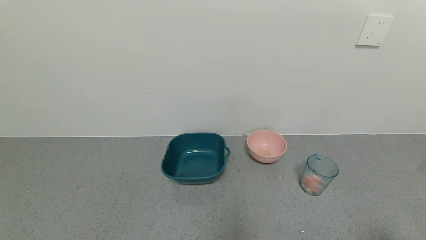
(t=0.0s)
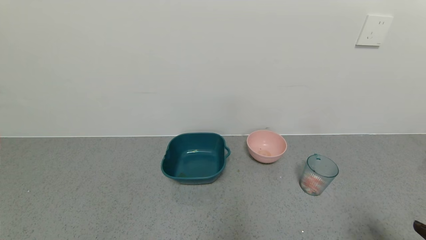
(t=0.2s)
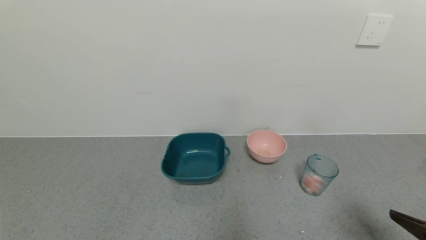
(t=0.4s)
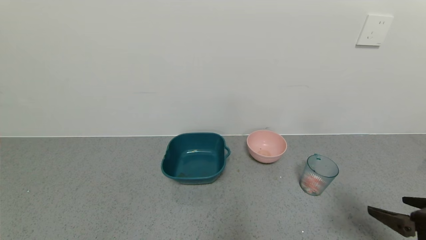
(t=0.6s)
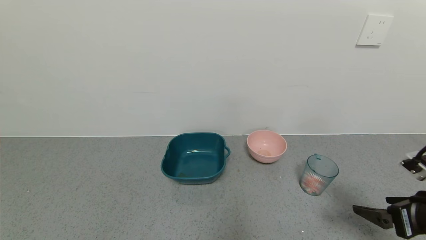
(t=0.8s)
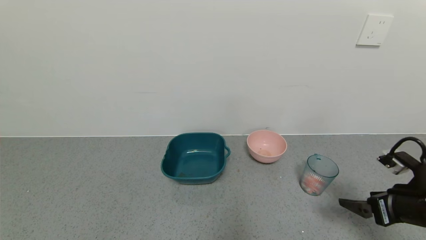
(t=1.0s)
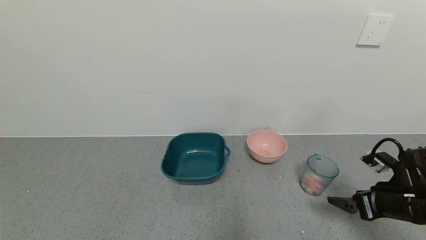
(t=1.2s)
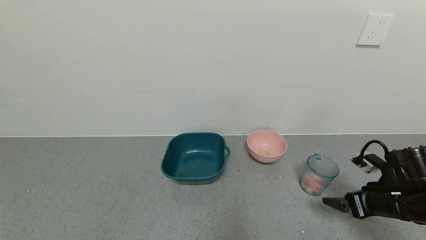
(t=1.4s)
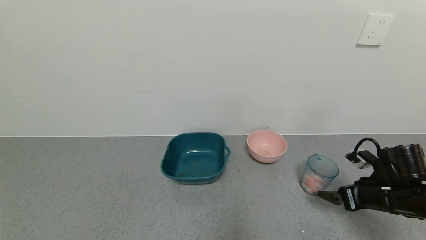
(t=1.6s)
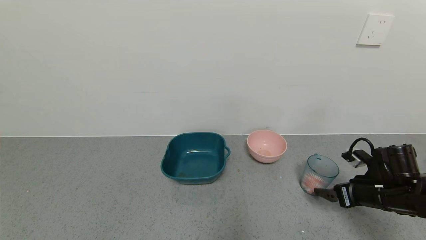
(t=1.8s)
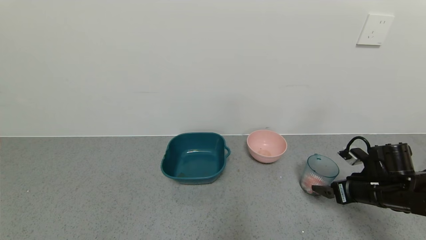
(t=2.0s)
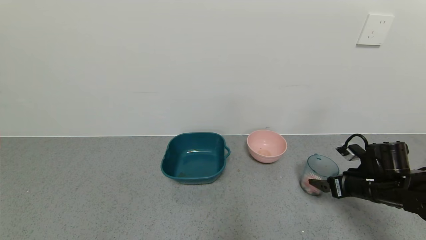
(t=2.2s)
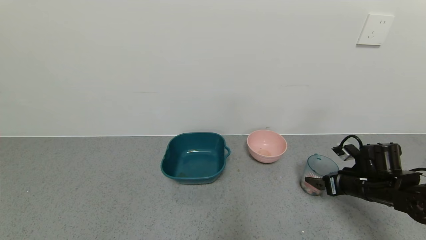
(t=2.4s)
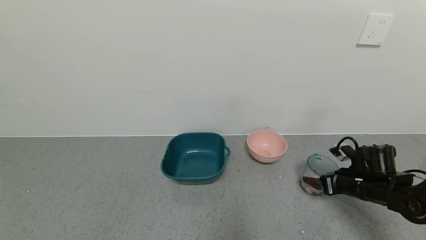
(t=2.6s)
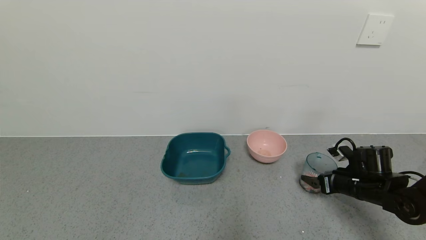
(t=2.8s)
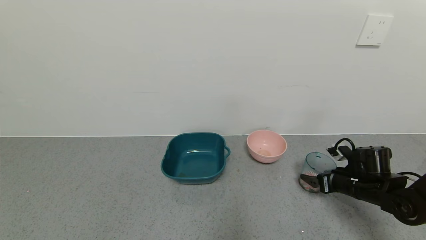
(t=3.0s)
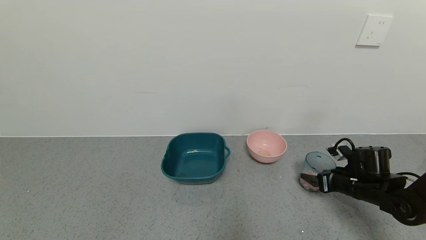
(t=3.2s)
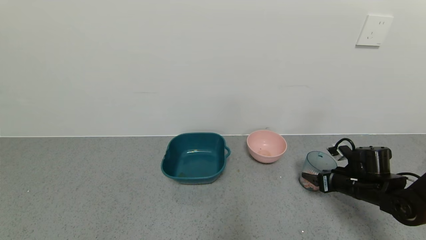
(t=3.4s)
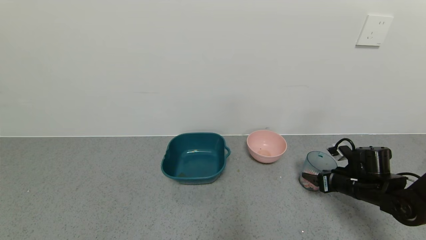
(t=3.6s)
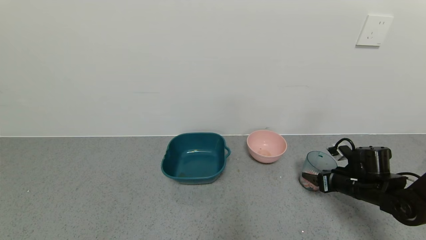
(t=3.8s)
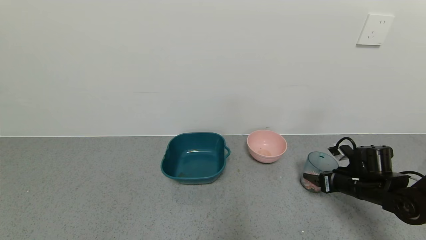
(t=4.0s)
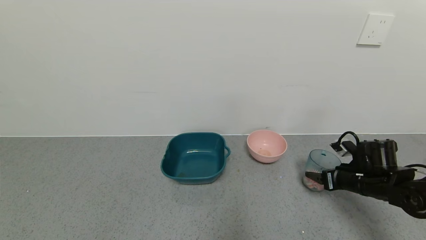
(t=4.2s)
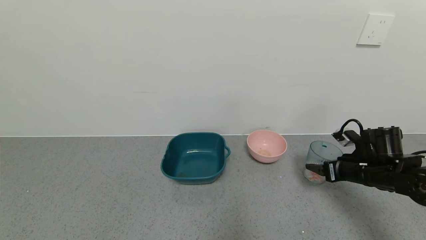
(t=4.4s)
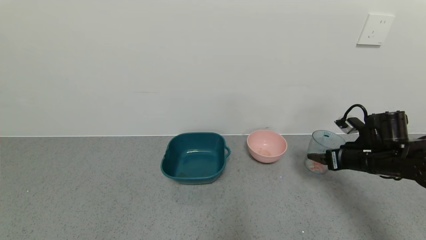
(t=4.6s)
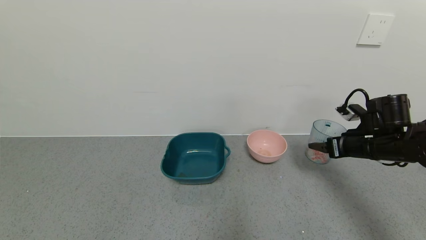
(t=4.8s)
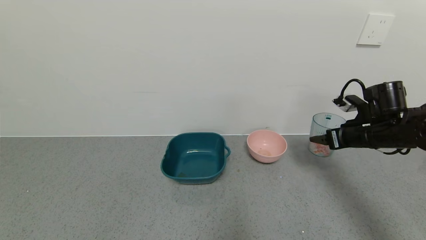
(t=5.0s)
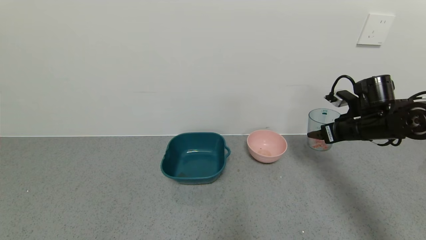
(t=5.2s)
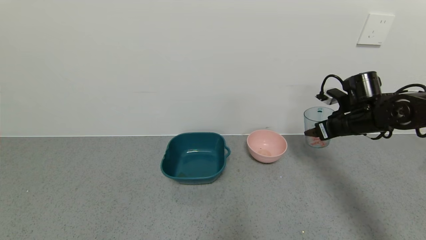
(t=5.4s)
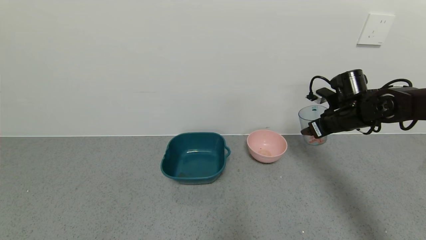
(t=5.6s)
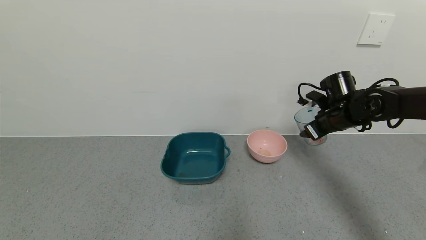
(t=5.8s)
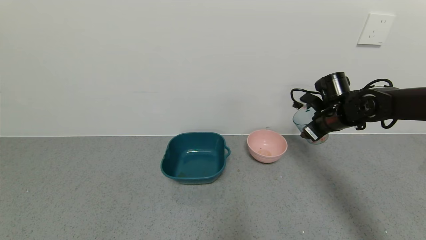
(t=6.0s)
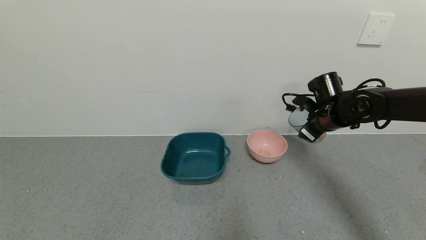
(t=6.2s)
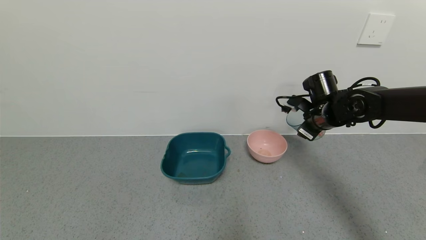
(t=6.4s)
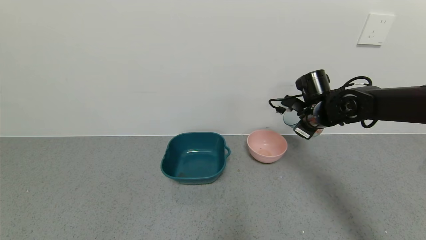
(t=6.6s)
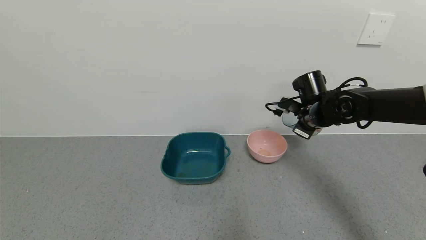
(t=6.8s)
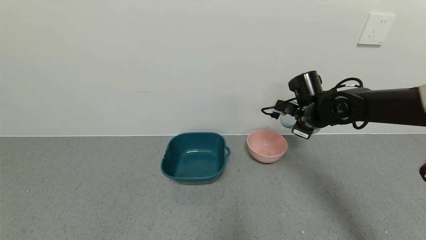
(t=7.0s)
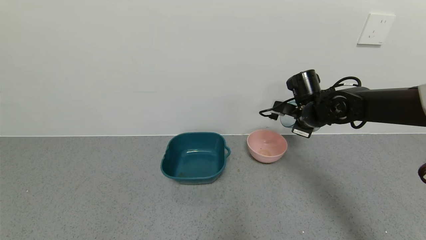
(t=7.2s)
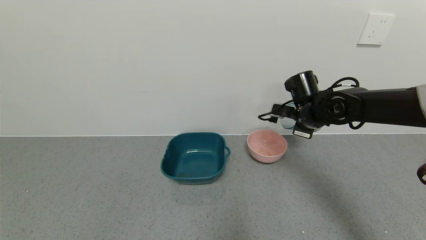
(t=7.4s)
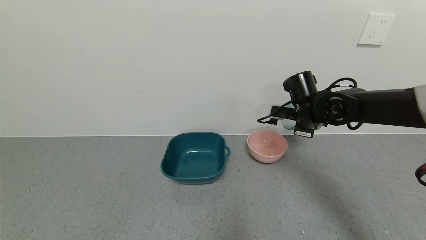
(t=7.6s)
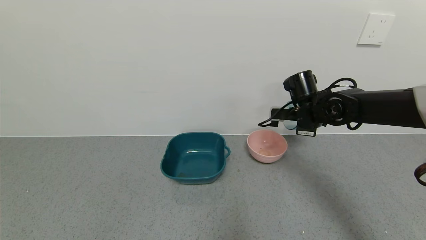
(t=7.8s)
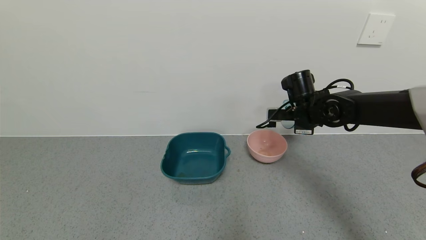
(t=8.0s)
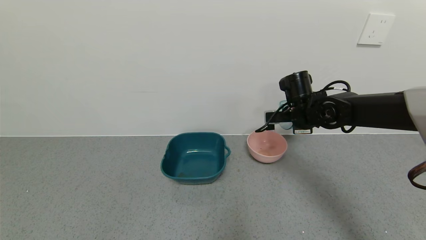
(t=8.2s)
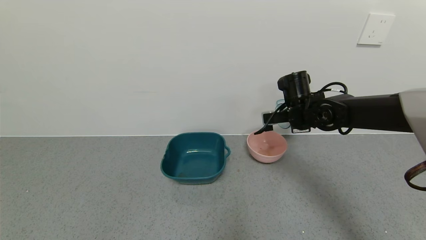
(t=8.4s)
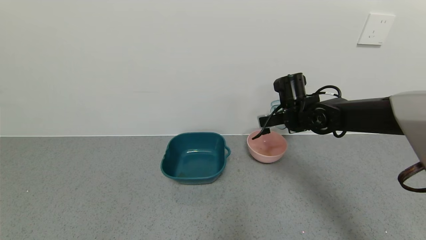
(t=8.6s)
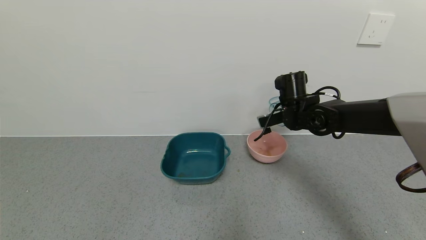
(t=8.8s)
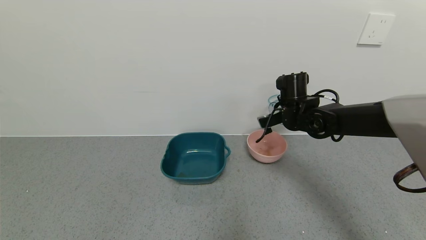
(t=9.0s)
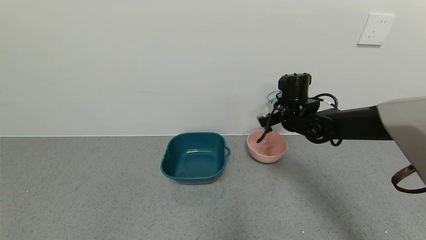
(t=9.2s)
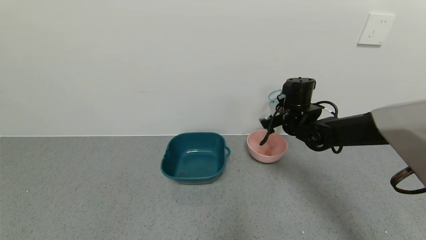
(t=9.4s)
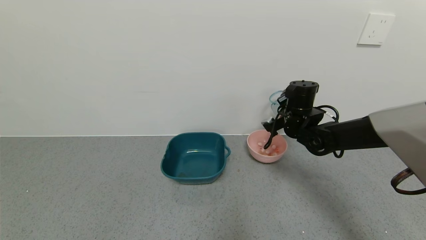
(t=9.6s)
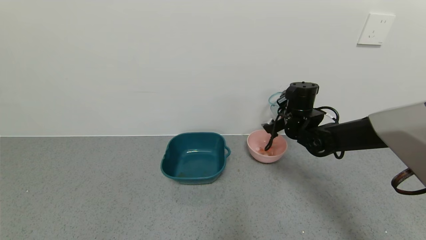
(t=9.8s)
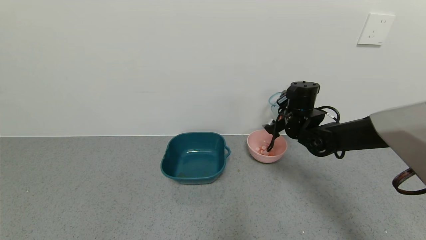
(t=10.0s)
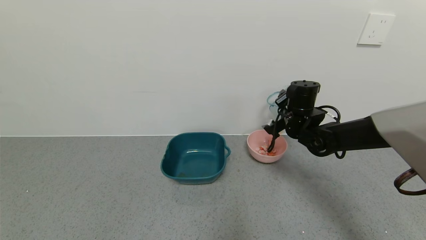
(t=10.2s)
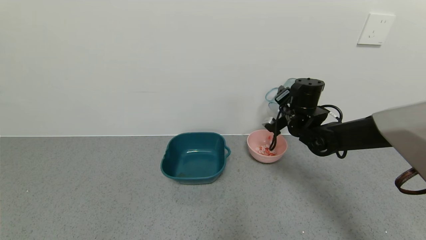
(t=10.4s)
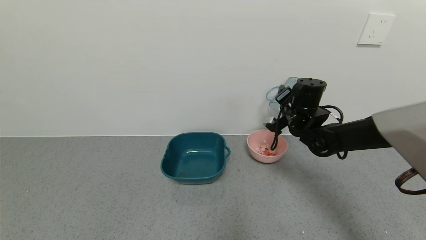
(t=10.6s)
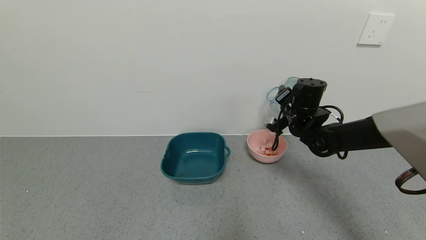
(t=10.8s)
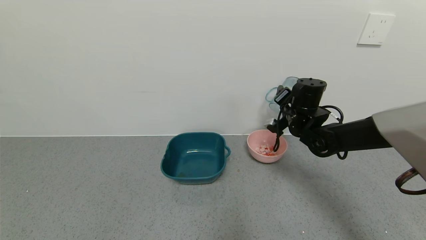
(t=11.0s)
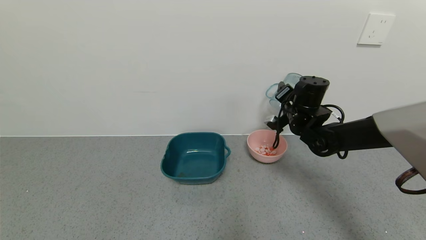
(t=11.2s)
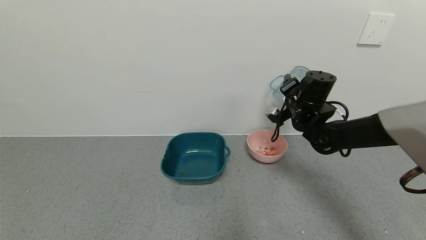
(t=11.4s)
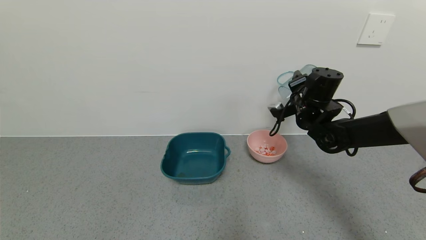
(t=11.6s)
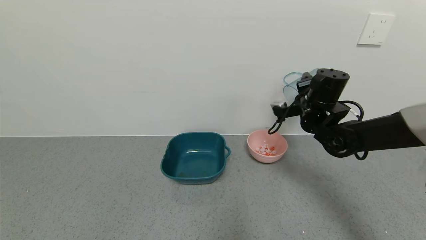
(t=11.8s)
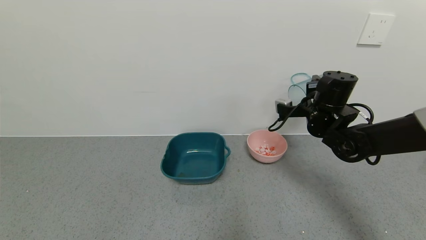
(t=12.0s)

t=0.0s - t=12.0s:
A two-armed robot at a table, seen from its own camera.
Task of the whole recording: use a gripper to pick up the cup and pour the solid into a bowl or tray.
Step, t=0.0s - t=3.4s: Grasp the glass of shrimp with the right gripper.
Step, t=3.6s - t=11.8s: Pour the shrimp into the pink bowl with the right gripper.
t=0.0s - t=1.6s: The right gripper travels forward by some 25 cm.
t=1.6s - t=3.0s: The right gripper heads forward, covering about 5 cm.
t=3.0s - t=4.4s: The right gripper shifts about 5 cm upward, and closes its fingers.
t=4.4s - t=6.0s: The right gripper travels forward, upward and to the left by some 15 cm.
t=6.0s - t=7.6s: The right gripper shifts some 5 cm to the left.
t=10.4s - t=12.0s: The right gripper moves approximately 5 cm.

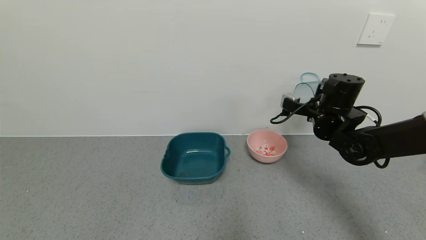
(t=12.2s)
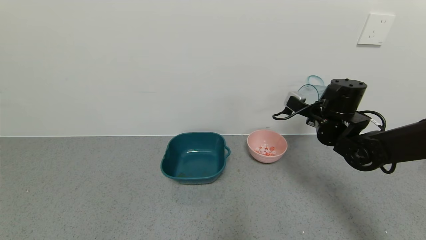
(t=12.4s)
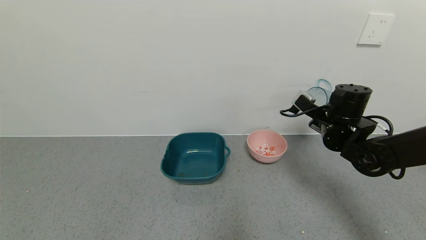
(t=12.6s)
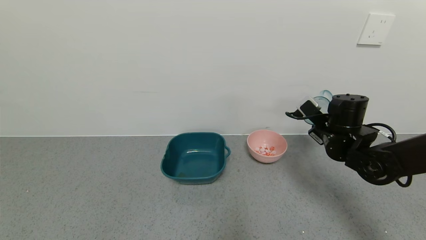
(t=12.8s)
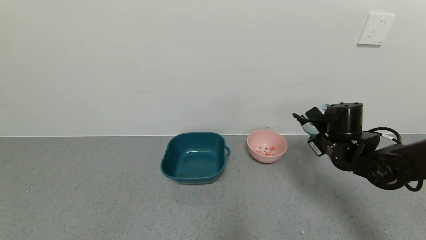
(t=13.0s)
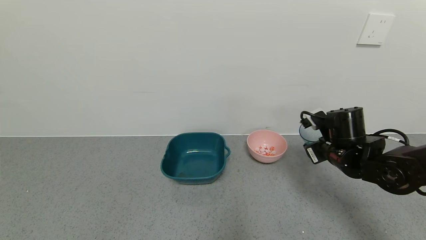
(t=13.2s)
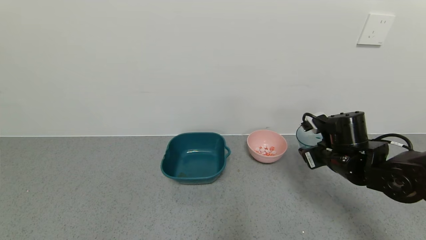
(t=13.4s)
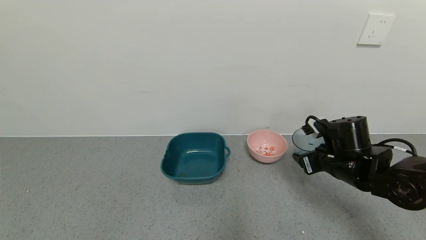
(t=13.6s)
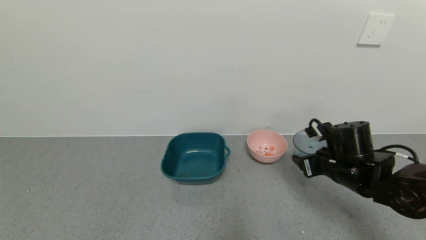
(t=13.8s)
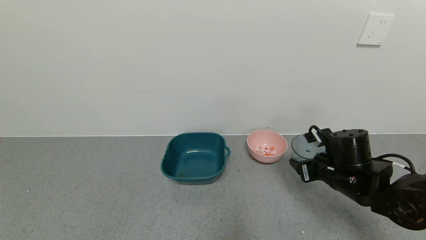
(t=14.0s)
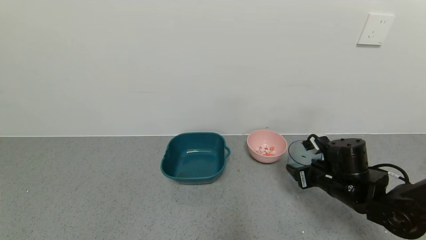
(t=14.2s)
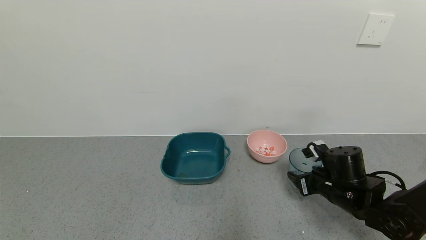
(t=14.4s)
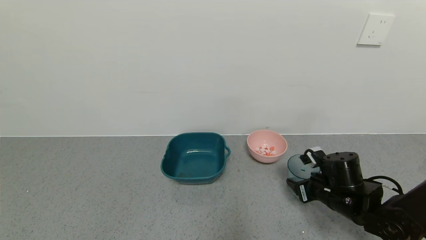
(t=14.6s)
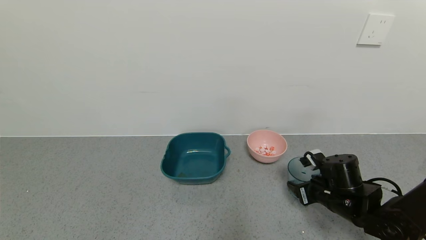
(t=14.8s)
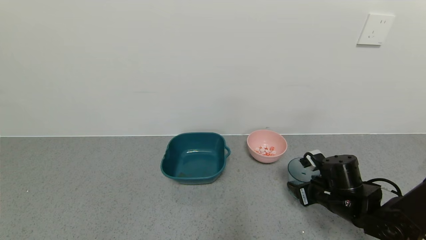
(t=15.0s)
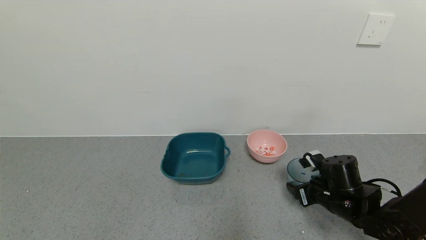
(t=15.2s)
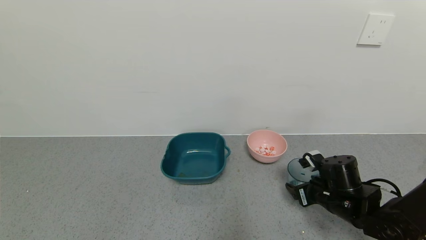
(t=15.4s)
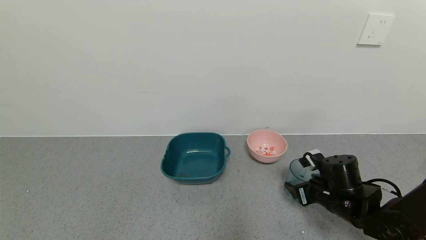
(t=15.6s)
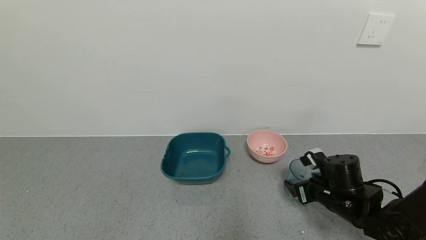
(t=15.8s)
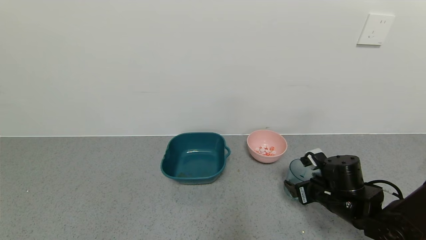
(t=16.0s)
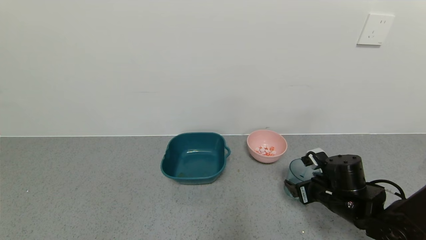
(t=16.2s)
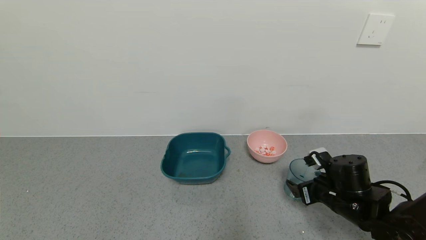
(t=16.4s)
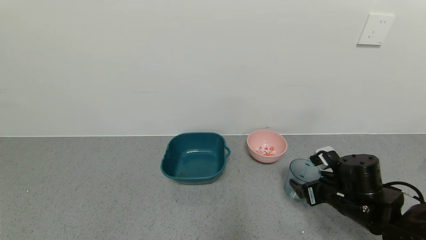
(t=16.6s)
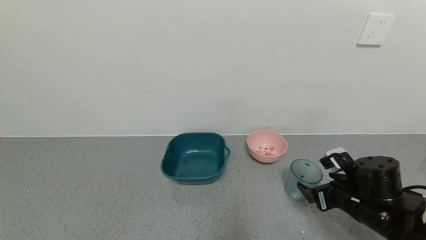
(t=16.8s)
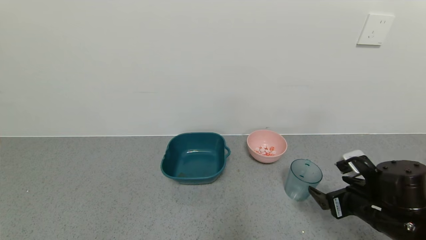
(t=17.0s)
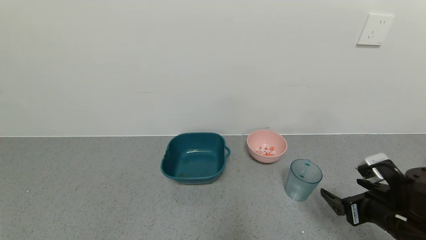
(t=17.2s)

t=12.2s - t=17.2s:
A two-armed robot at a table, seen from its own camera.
Task of the whole recording: use a gripper to pick up the cup and pour the solid into a bowl or tray.
Step, t=12.2s - t=16.8s: Place the glass cup with the right gripper.
t=12.2s - t=13.8s: The right gripper is displaced backward and downward by some 10 cm.
t=13.8s - t=15.6s: The right gripper travels downward by about 5 cm, and opens.
t=15.6s - t=17.2s: The right gripper heads backward and upward, covering roughly 10 cm.
